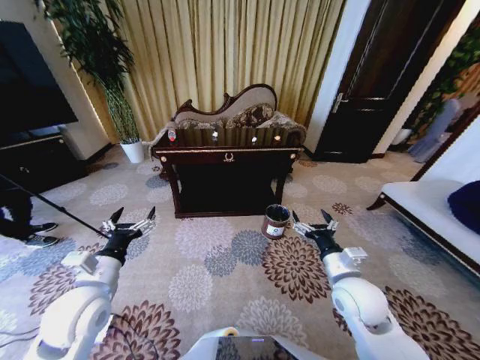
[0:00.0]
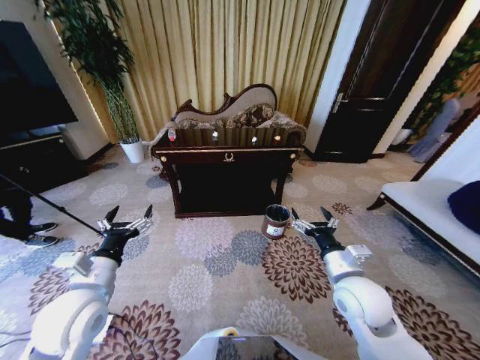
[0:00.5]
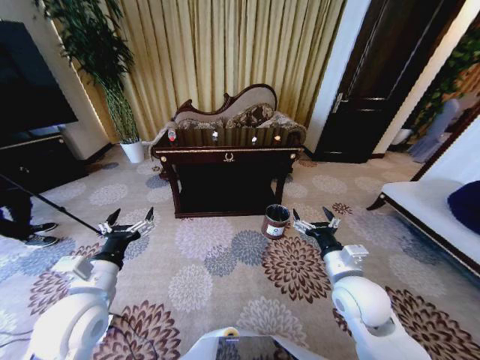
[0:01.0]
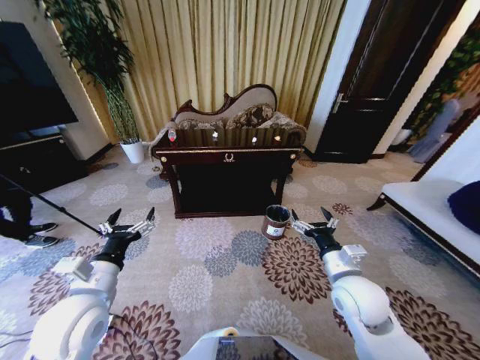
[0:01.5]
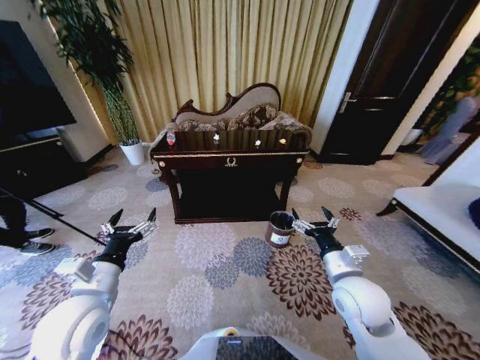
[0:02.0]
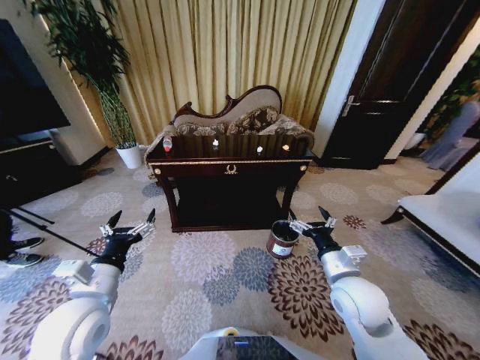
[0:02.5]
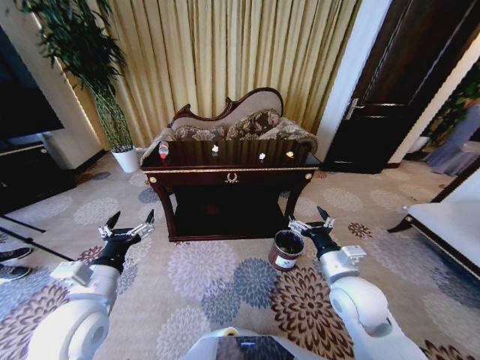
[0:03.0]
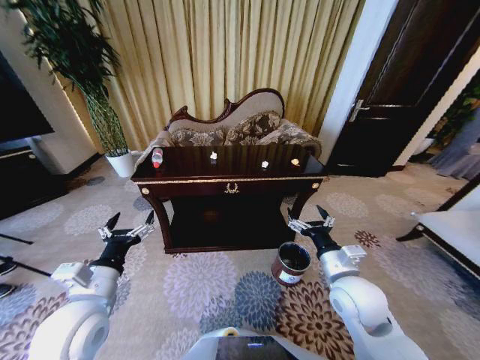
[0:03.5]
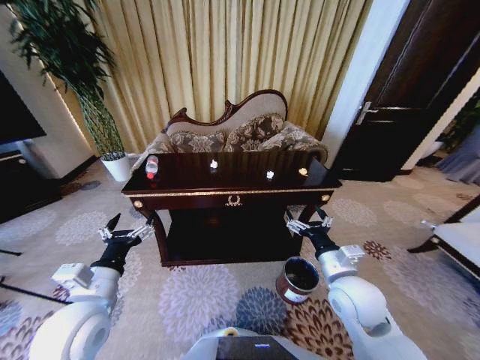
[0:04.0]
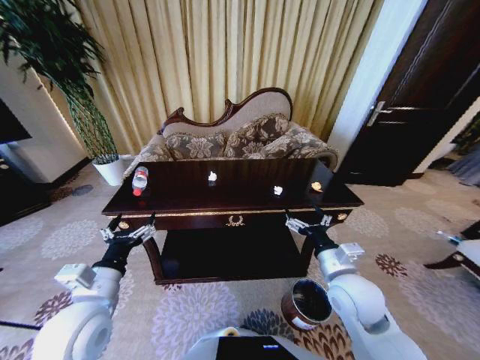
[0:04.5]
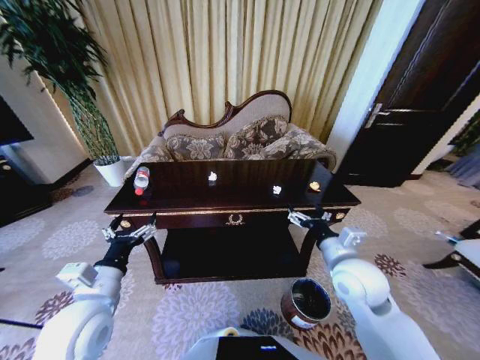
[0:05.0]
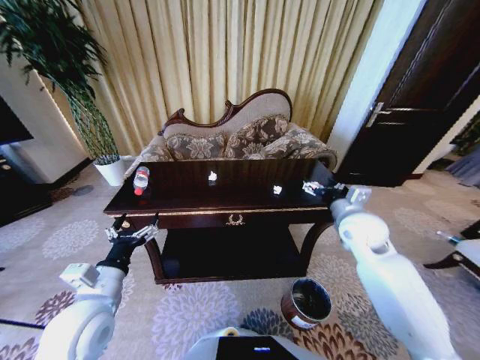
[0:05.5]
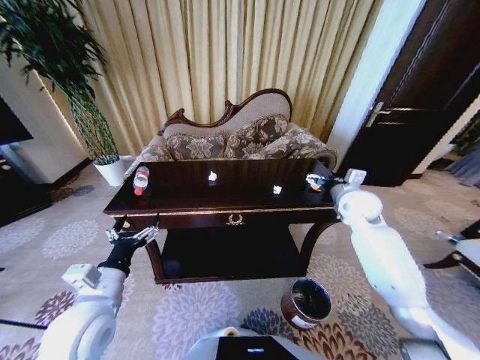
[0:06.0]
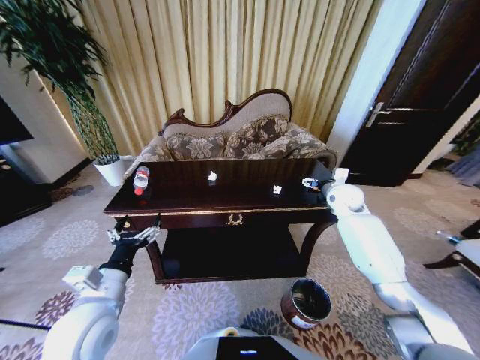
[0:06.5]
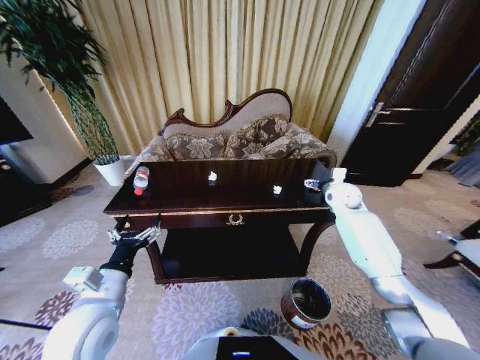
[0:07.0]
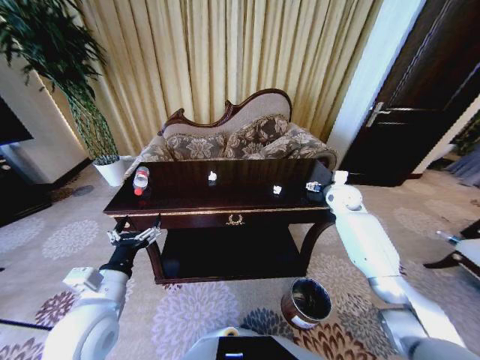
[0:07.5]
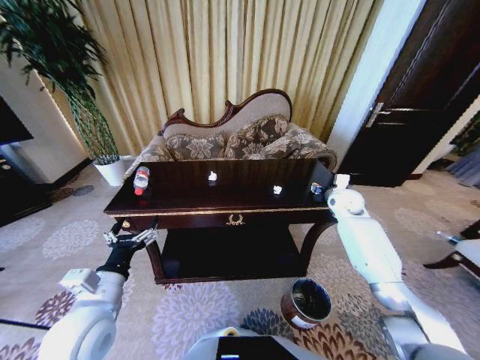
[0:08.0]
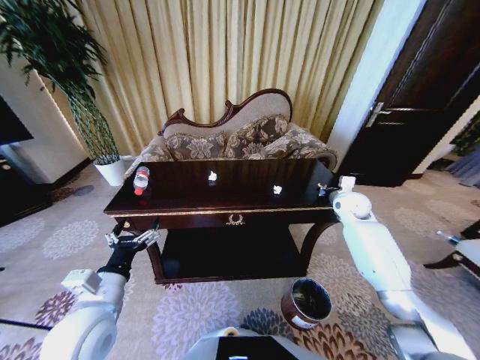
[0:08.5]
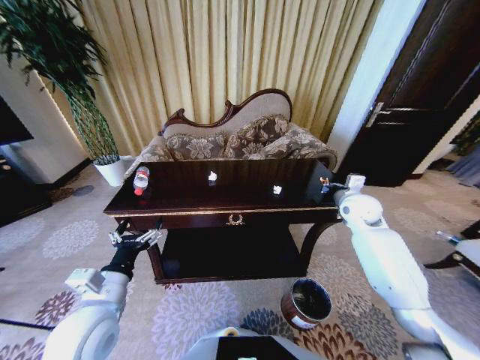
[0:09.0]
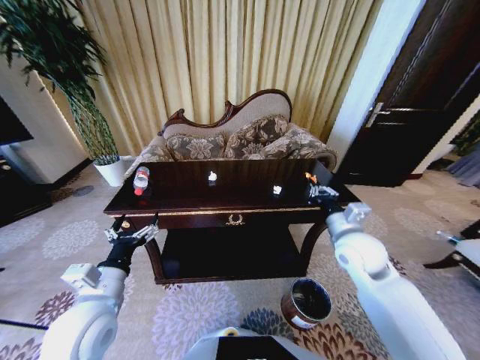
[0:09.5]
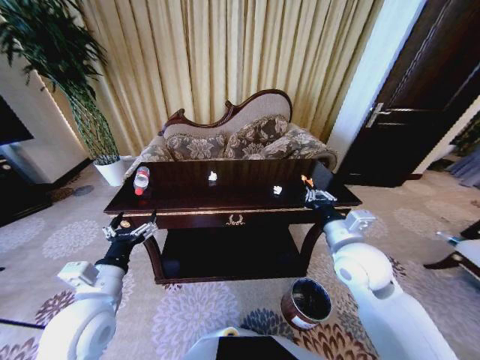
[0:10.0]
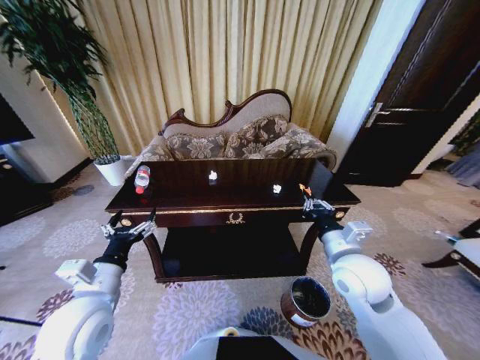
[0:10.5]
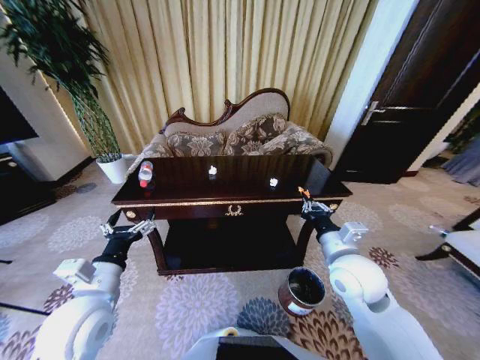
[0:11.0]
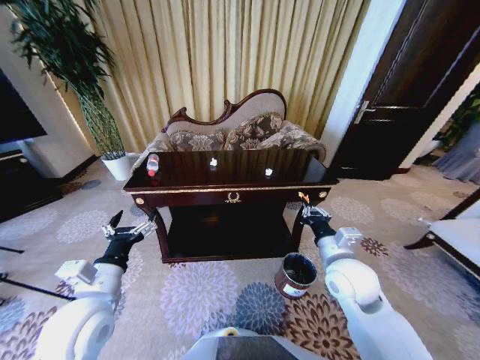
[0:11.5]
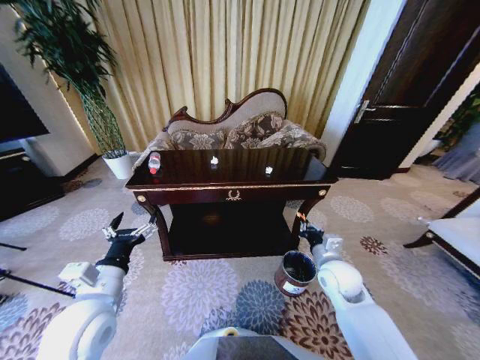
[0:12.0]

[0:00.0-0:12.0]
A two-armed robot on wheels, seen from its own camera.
Task of the whole recording: Move to the front of the table and place the trash on the table into the trash bin.
0:04.0 to 0:06.0: The right gripper goes approximately 25 cm forward and to the right.
0:06.0 to 0:08.0: The right gripper moves forward and downward, some 10 cm, and closes.
0:08.0 to 0:10.0: The right gripper goes about 25 cm backward and to the left, and closes.
0:10.0 to 0:12.0: The right gripper is displaced downward by about 15 cm.

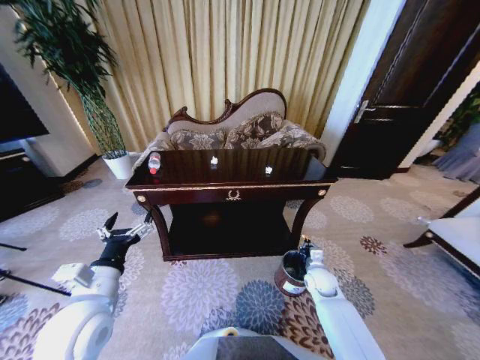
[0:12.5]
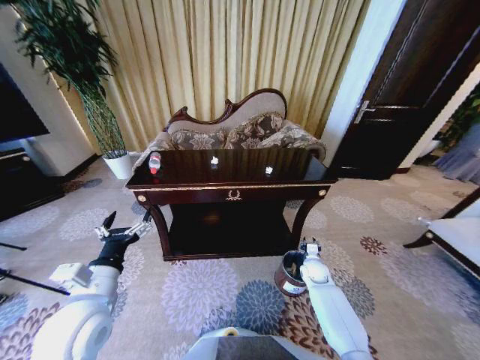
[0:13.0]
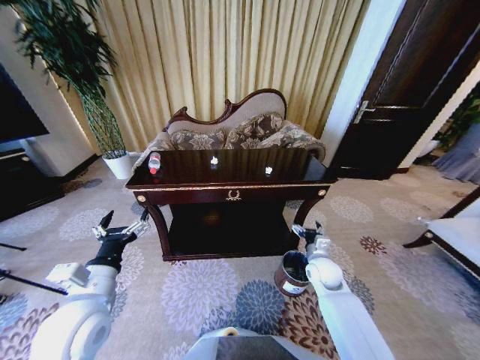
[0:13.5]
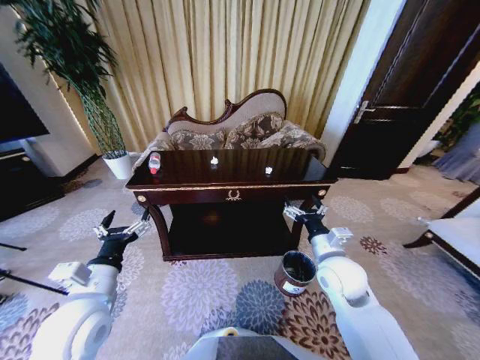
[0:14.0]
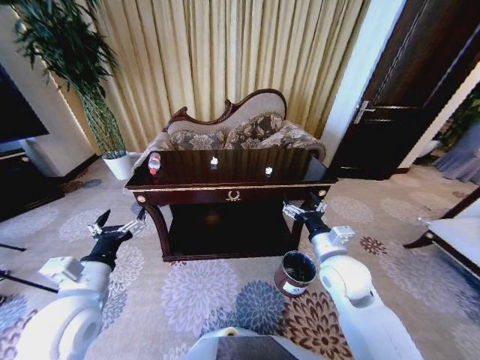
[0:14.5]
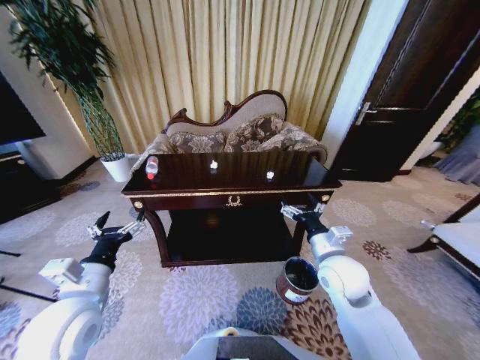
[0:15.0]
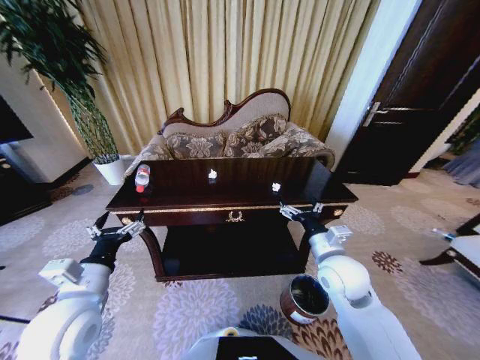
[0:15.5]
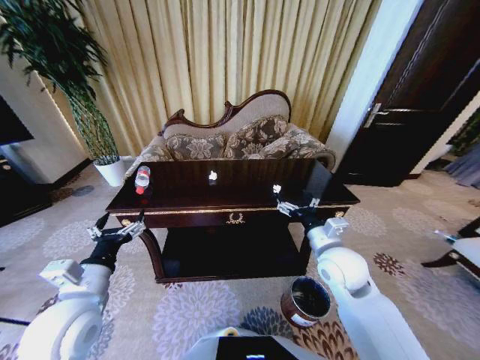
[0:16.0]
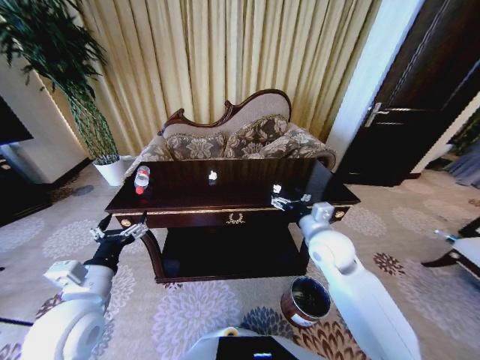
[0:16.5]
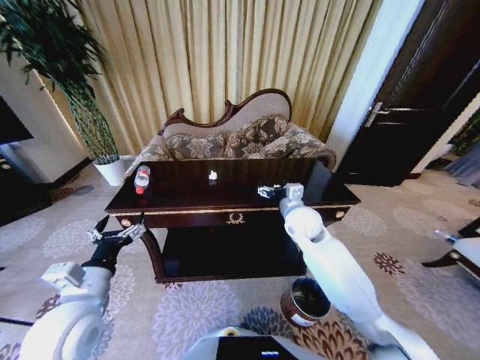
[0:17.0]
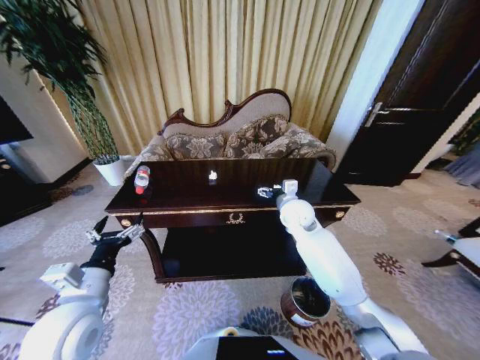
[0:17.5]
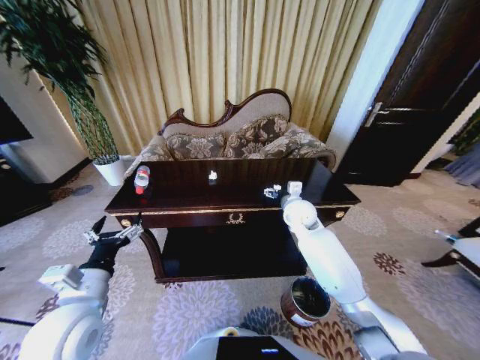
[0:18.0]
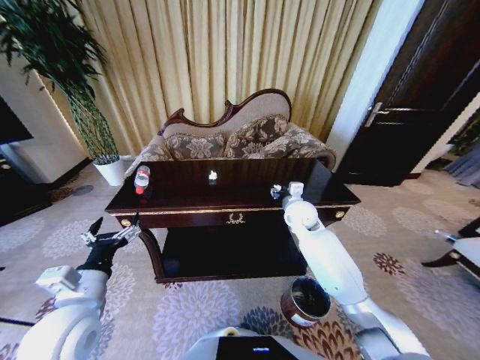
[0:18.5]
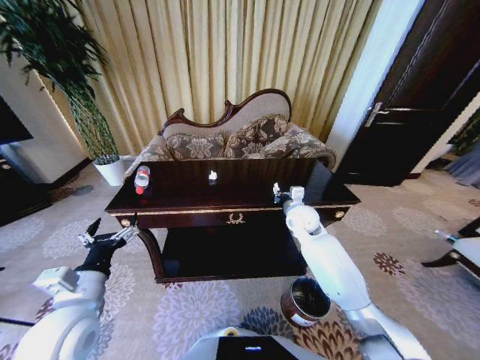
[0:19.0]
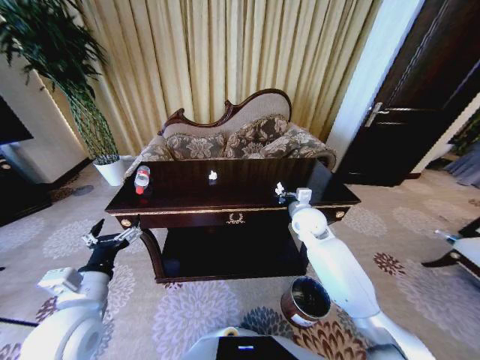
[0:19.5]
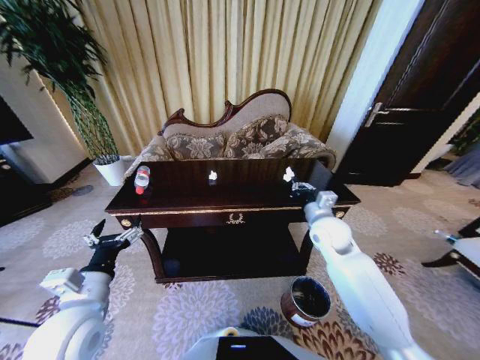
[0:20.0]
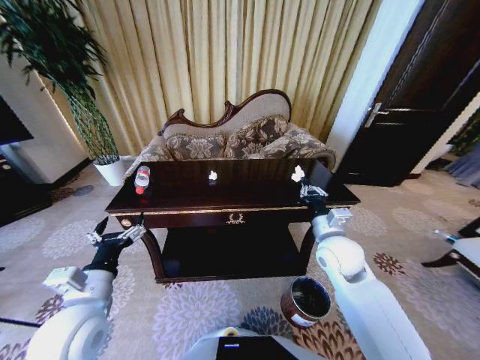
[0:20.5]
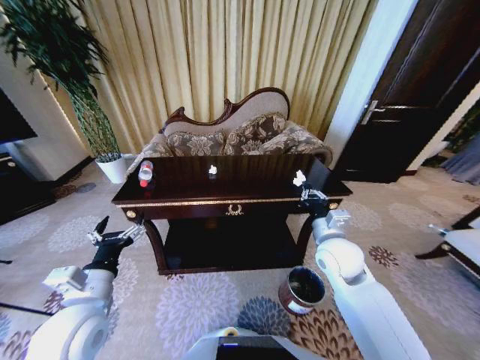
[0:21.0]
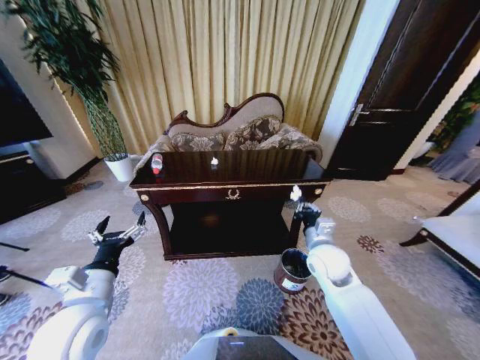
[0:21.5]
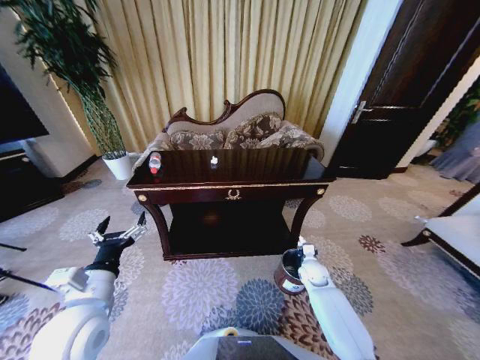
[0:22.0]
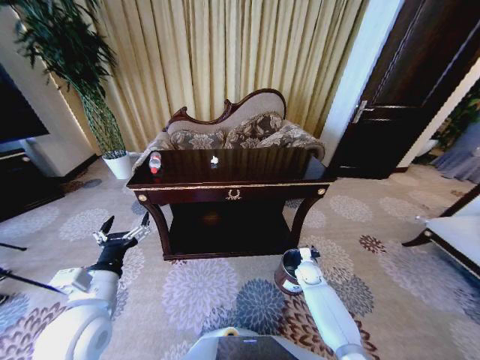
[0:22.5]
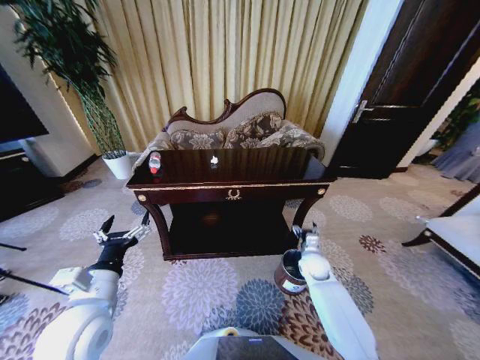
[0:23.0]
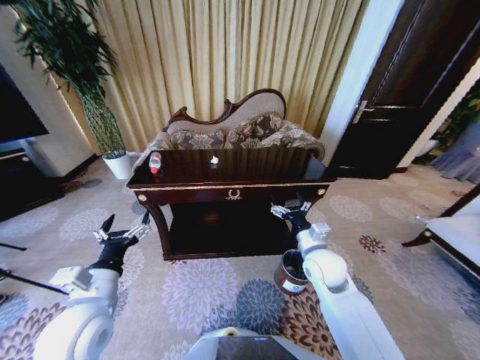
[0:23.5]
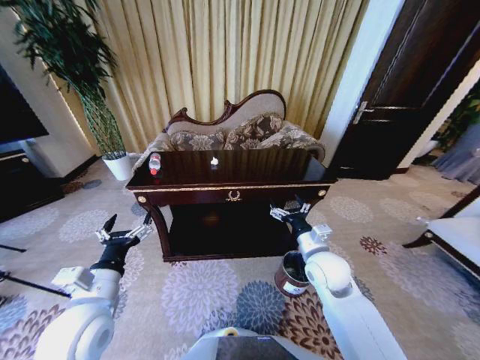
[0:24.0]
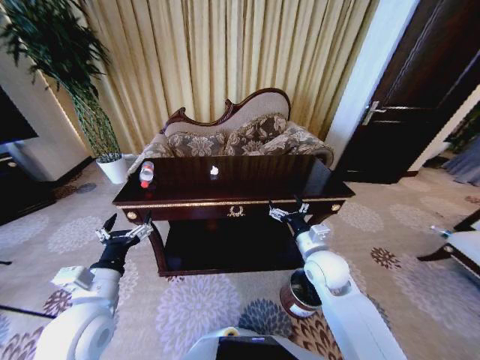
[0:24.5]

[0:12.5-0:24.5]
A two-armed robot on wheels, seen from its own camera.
Task of the whole recording: Move to the front of the table and place the trash on the table into the trash bin.
0:12.5 to 0:14.5: The right gripper travels upward by some 20 cm, and opens its fingers.
0:14.5 to 0:16.5: The right gripper moves forward, approximately 5 cm.
0:16.5 to 0:18.5: The right gripper is displaced forward by roughly 15 cm, and closes up.
0:18.5 to 0:20.5: The right gripper heads backward, covering roughly 15 cm, and closes up.
0:20.5 to 0:22.5: The right gripper shifts some 30 cm downward.
0:22.5 to 0:24.5: The right gripper travels upward by about 25 cm, and opens up.

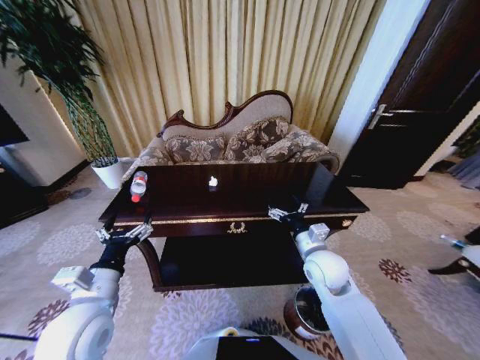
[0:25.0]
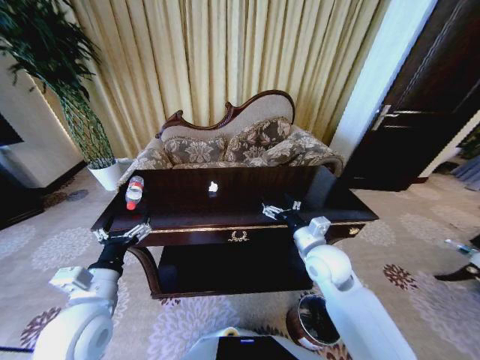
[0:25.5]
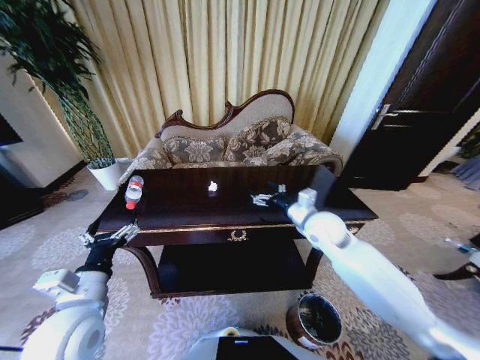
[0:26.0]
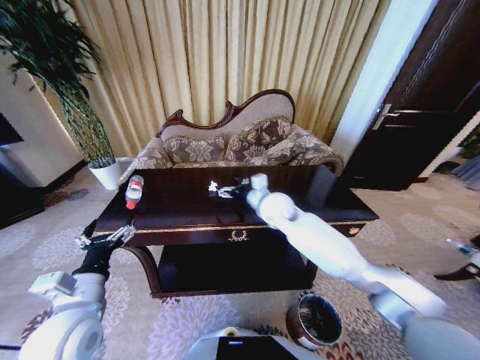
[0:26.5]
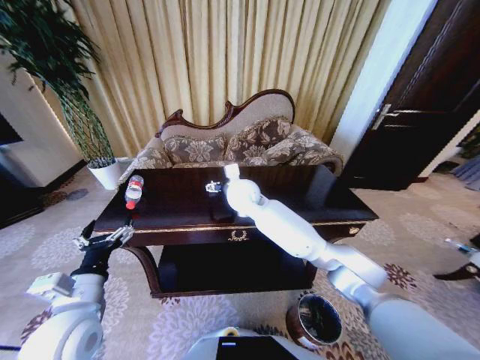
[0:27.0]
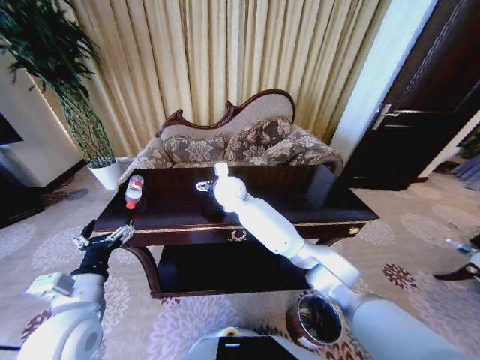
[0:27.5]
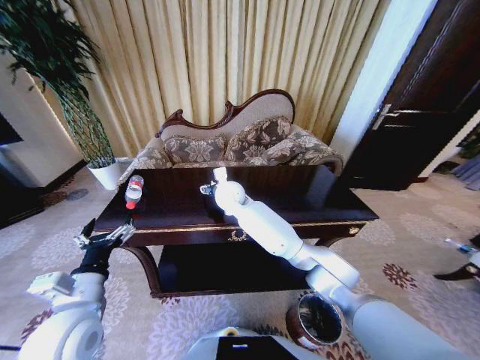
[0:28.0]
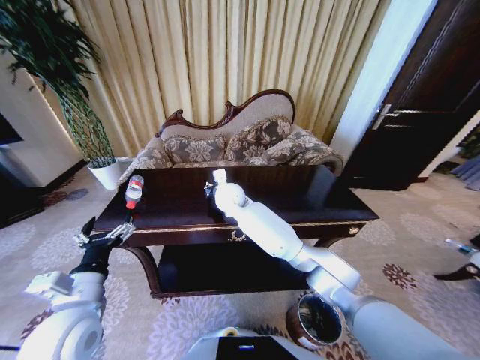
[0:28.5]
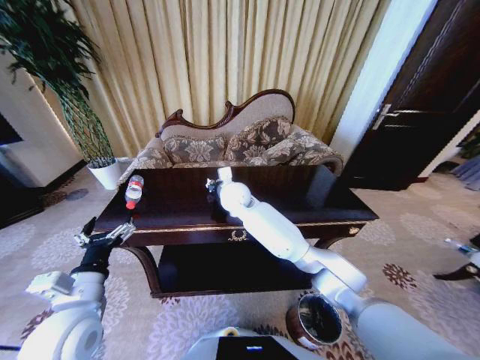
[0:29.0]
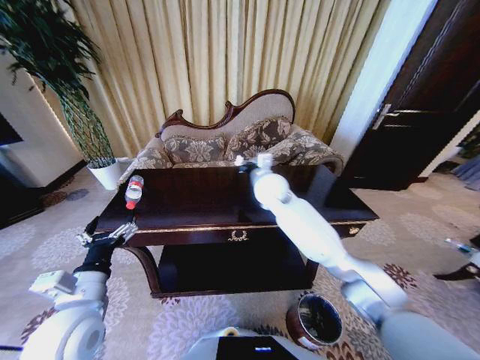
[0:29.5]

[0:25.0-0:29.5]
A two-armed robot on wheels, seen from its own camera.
Task of the whole recording: Move to the front of the table and place the trash on the table into the trash bin.
0:25.0 to 0:27.0: The right gripper heads to the left, forward and upward, covering roughly 30 cm.
0:27.0 to 0:29.5: The right gripper moves to the right, some 10 cm, and closes.
